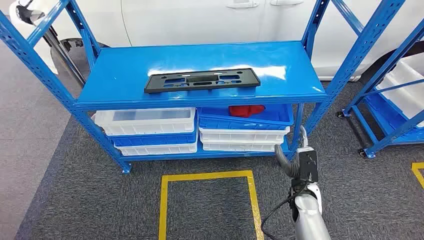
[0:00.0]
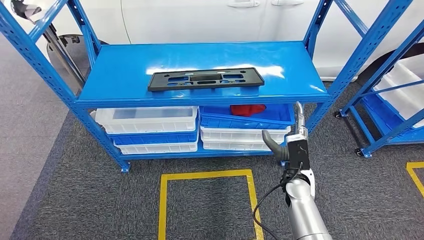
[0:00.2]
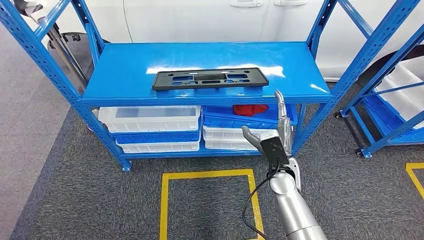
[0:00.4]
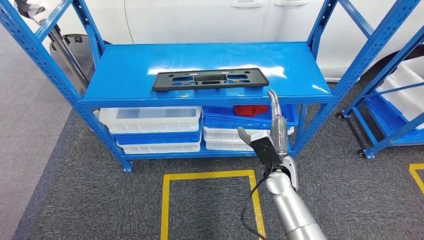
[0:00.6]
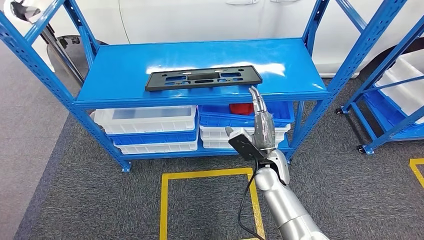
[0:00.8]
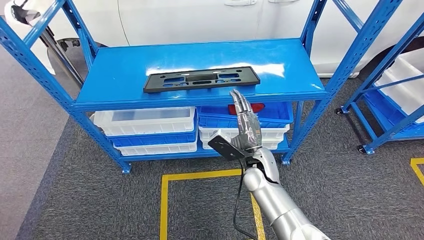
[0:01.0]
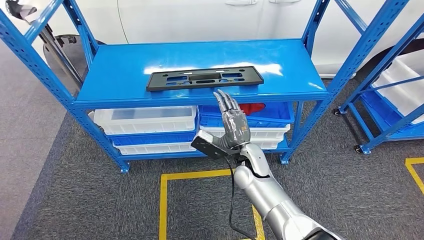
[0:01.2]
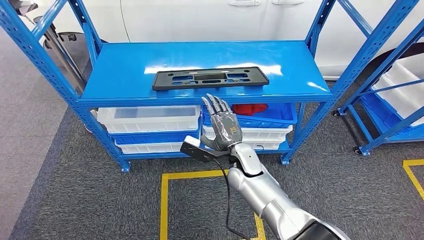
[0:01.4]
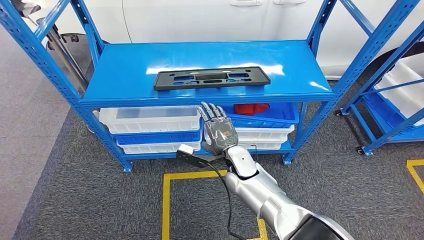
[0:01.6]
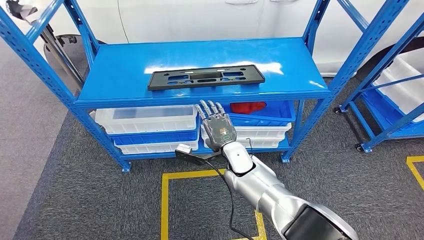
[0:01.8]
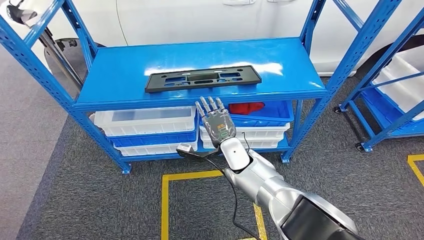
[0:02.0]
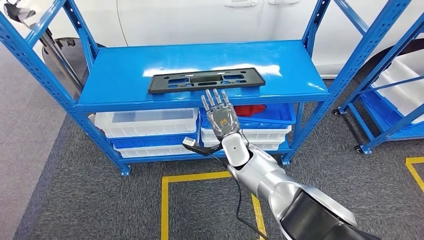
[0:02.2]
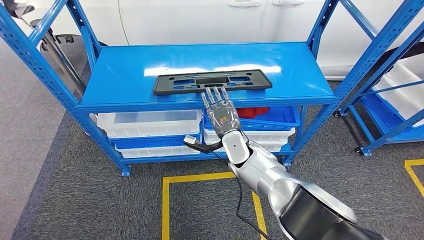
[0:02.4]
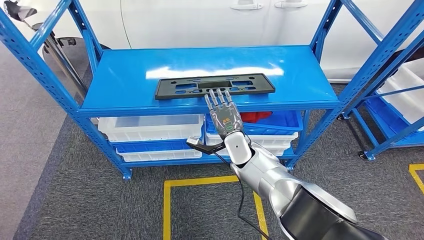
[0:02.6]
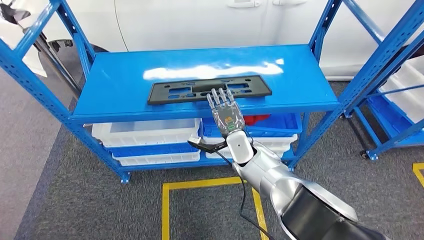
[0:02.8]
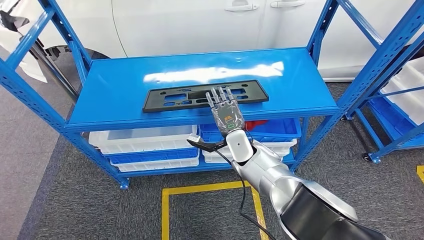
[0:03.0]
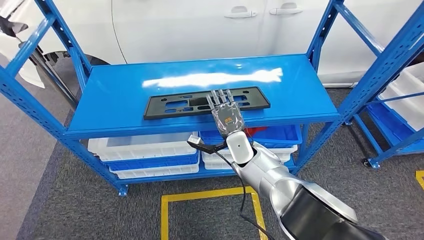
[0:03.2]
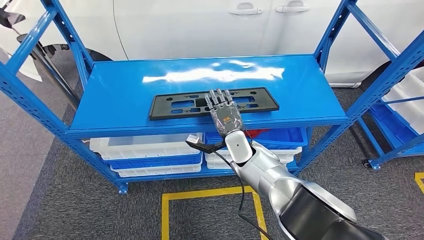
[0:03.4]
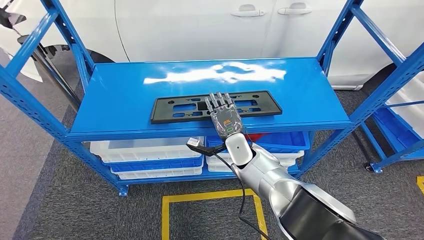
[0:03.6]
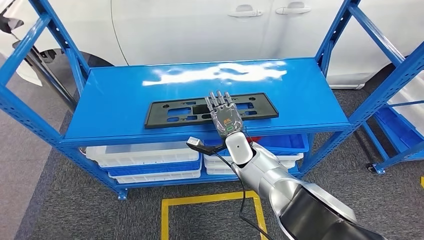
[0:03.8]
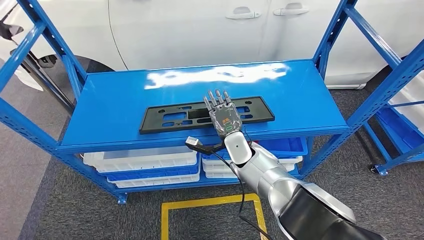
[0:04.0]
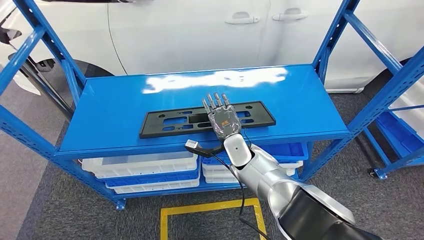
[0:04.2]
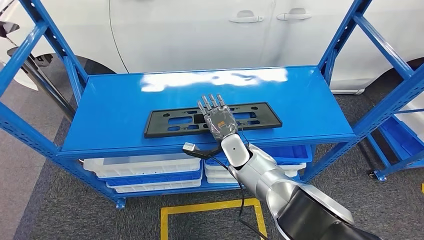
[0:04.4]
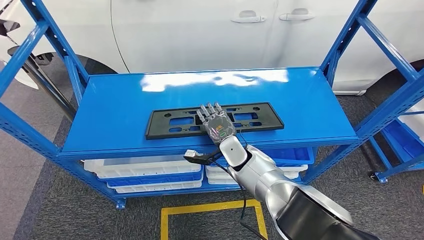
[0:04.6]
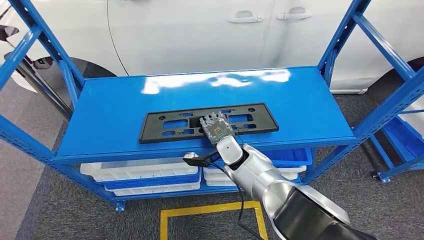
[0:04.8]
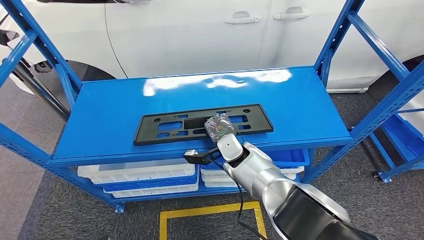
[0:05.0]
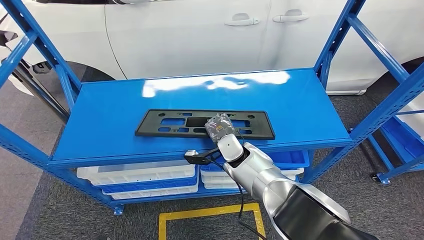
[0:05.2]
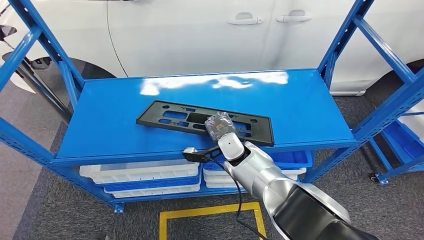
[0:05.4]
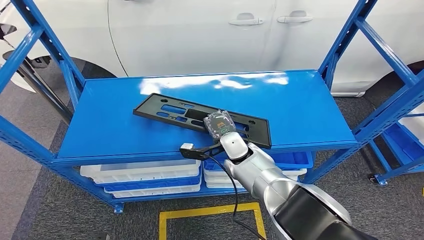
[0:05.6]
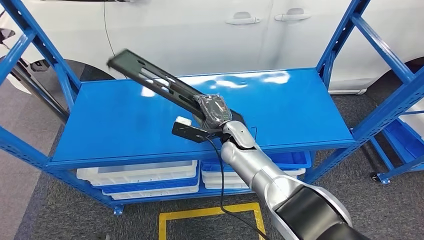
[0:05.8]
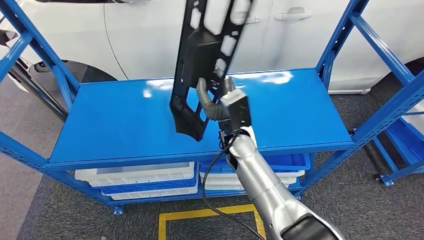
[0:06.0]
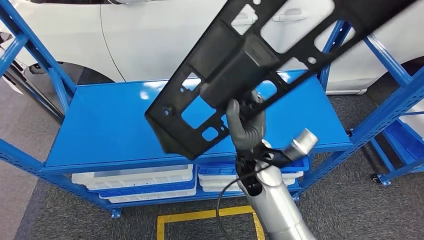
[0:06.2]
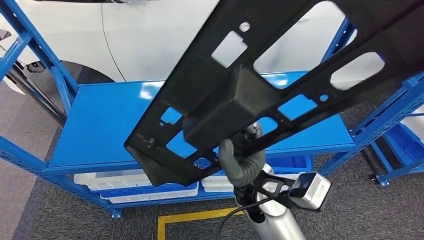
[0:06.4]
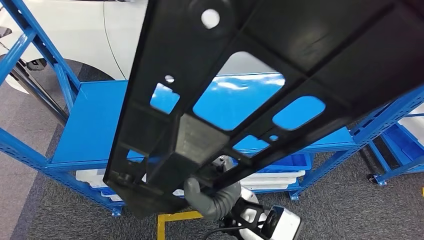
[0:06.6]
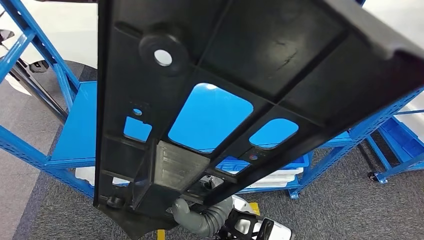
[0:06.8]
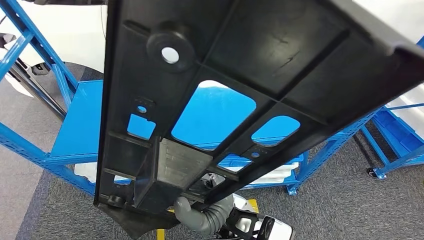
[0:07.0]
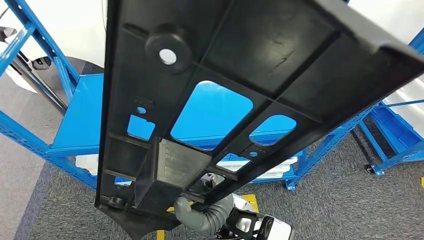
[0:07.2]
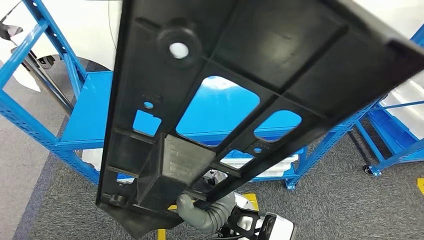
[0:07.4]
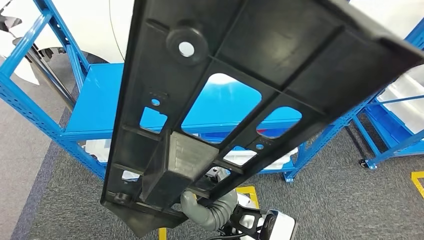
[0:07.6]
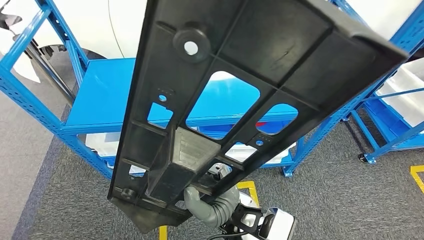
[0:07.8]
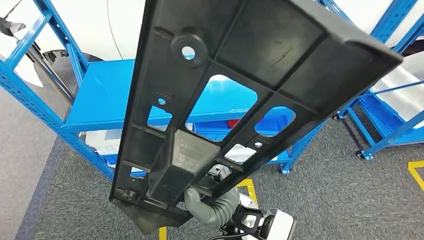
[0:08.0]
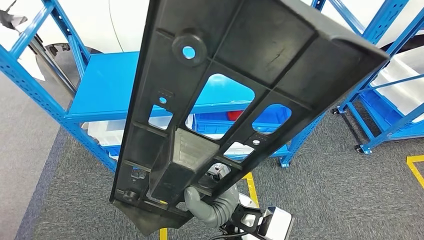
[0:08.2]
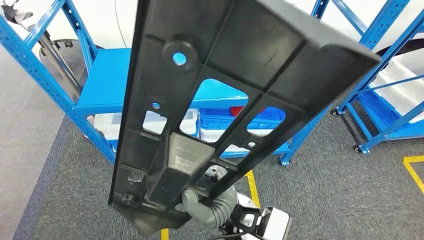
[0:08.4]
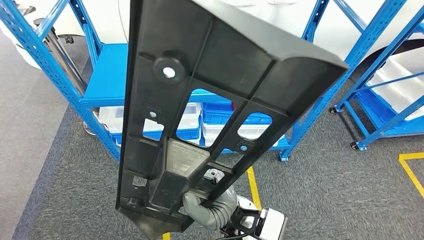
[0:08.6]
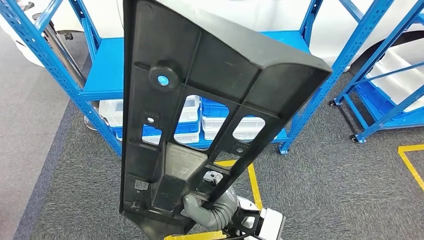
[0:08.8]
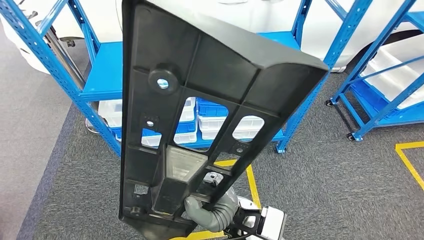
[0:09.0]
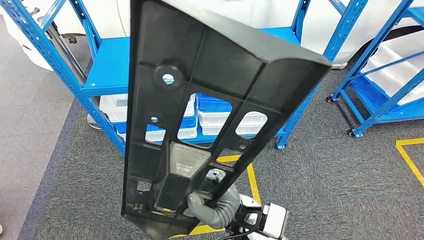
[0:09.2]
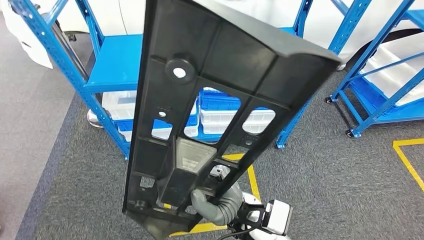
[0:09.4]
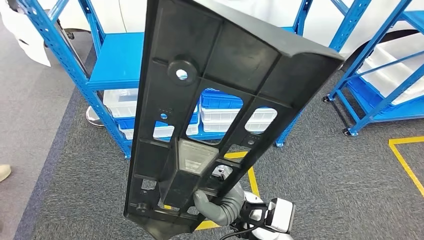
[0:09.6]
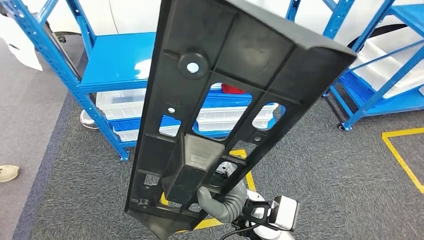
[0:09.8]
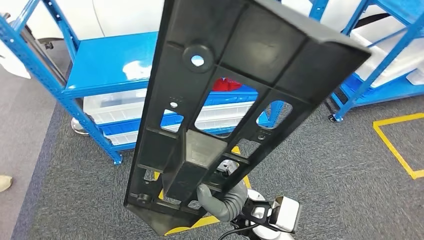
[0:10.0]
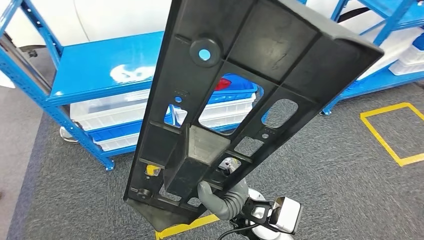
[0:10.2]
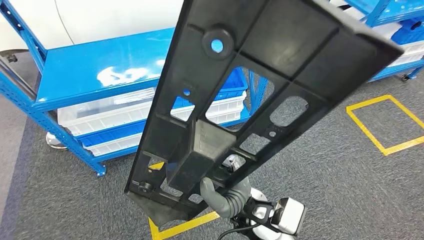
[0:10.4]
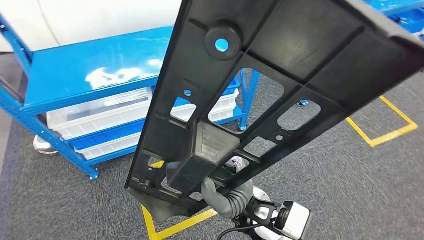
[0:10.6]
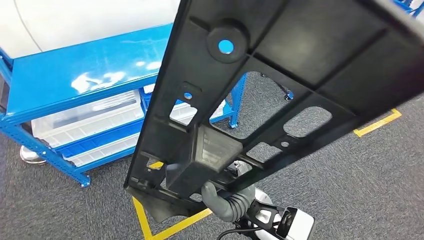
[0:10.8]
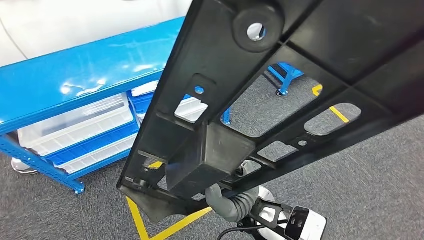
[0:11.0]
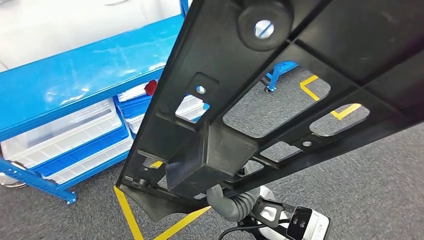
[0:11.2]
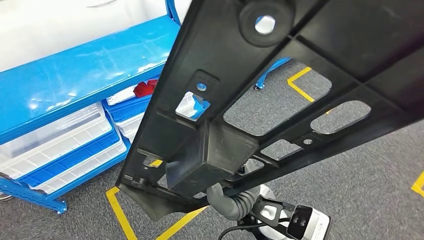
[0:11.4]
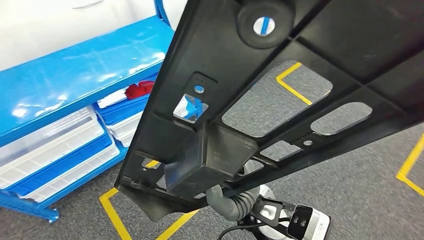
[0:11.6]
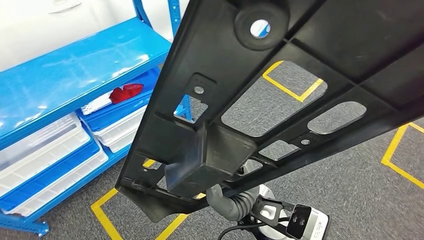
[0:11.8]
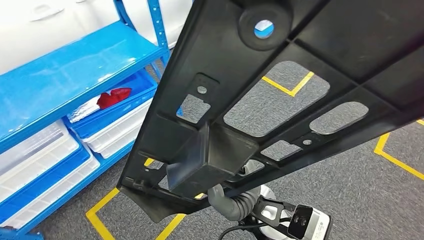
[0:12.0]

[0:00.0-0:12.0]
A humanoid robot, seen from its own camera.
Step, 0:00.0 to 0:06.6: Pick up the large material from the shelf.

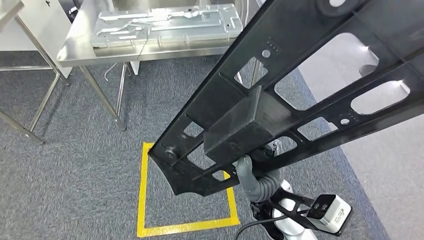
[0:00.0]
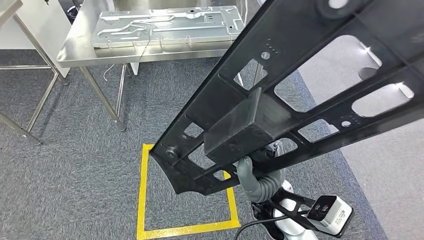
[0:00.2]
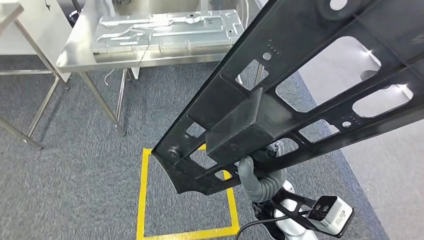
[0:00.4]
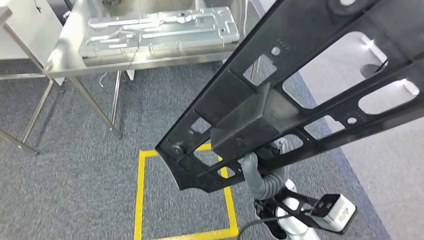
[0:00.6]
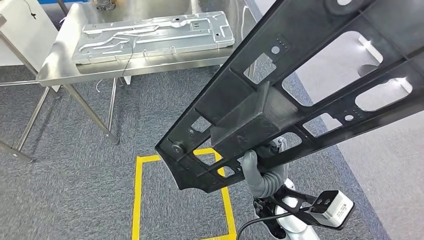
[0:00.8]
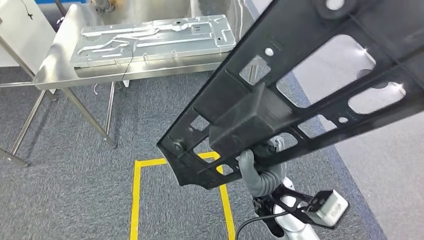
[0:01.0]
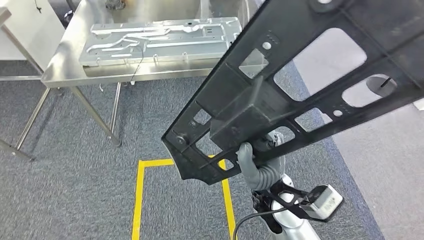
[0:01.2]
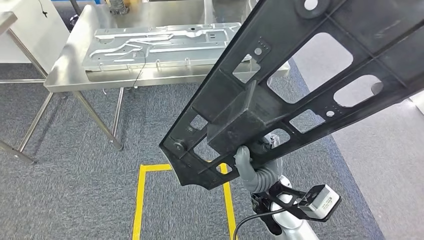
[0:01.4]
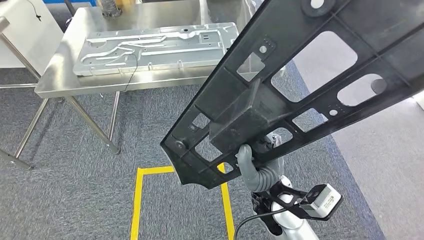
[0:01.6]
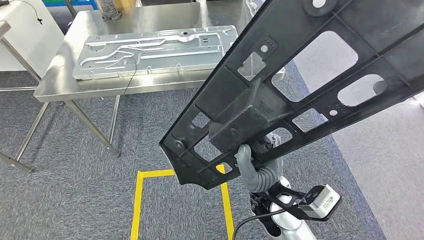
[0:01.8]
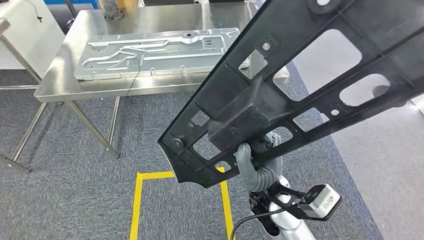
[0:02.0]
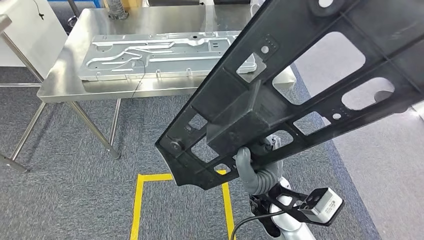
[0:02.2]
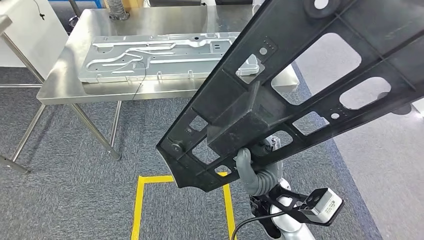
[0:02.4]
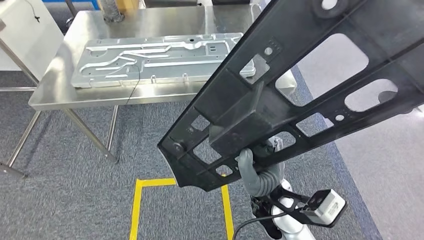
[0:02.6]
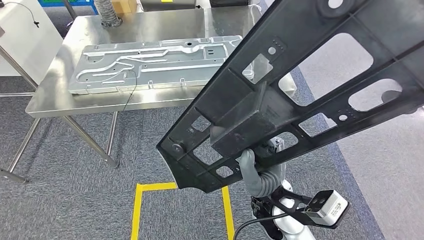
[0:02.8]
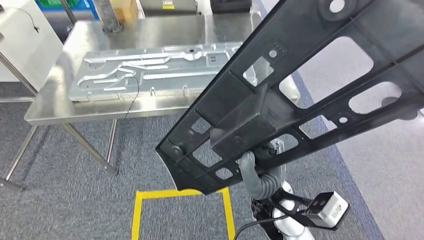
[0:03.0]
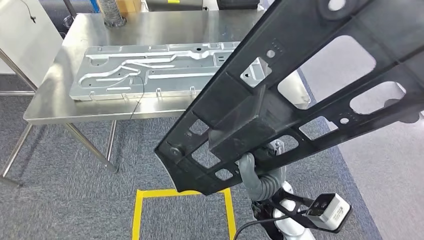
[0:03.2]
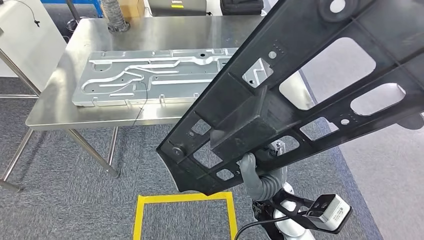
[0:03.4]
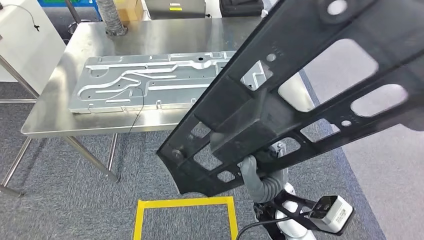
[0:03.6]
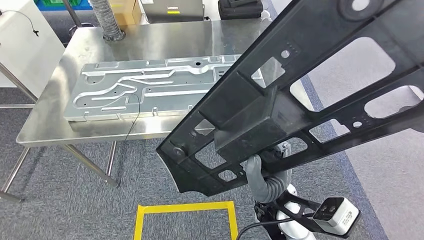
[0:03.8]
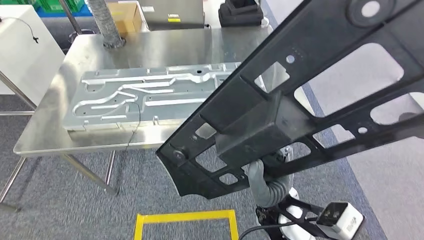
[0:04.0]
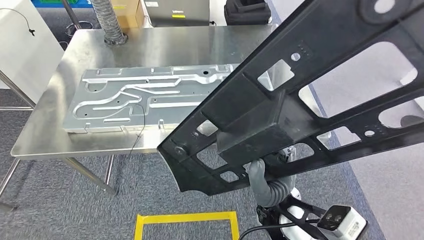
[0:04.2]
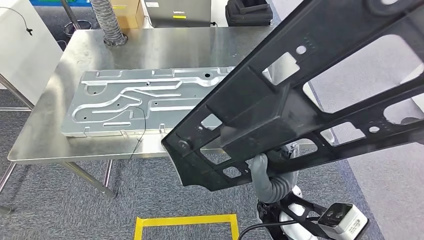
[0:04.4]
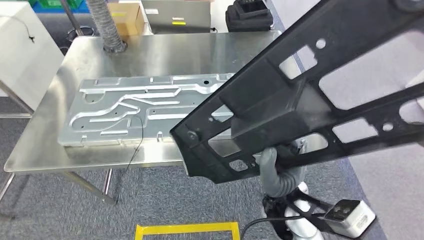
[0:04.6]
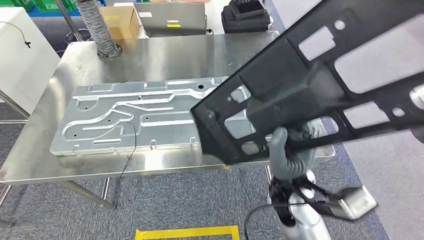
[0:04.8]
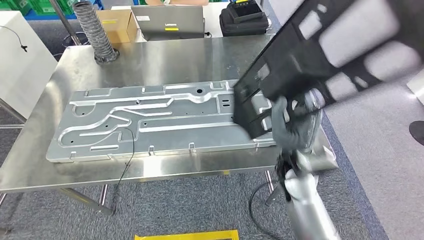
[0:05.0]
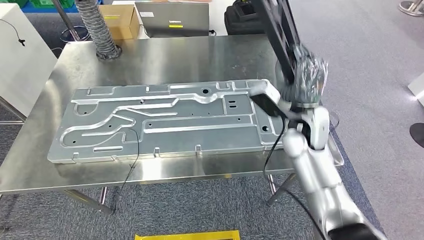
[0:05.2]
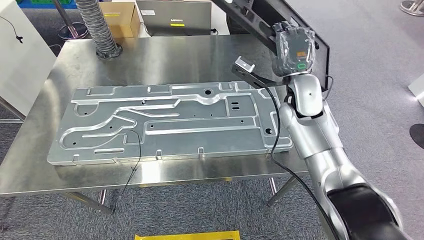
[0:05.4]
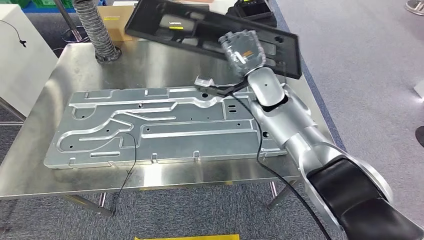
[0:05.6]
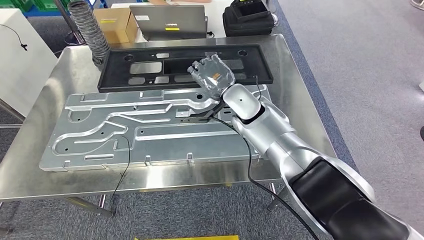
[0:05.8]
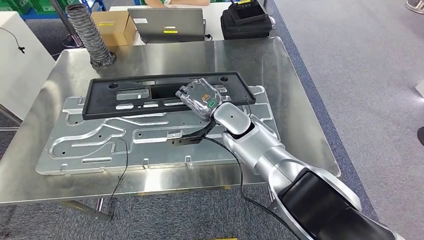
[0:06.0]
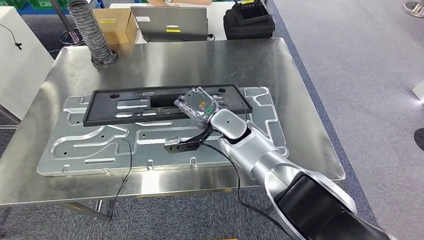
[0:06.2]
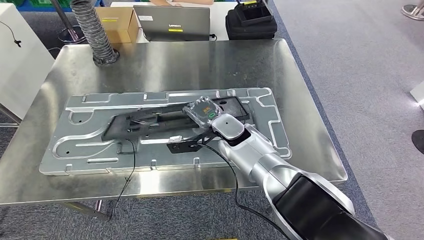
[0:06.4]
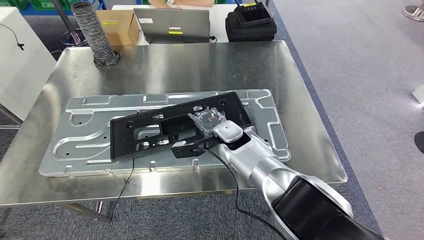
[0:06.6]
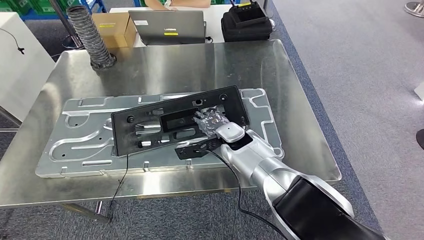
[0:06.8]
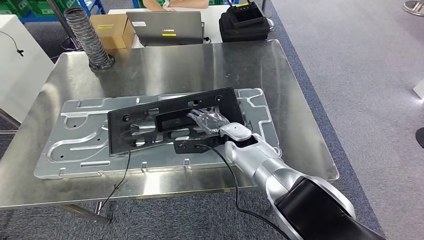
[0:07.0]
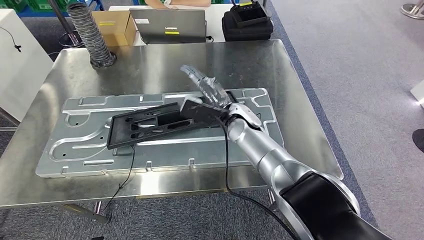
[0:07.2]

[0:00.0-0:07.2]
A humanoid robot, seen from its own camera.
Step, 0:00.0 to 0:06.0: Move the large material to the workbench.
